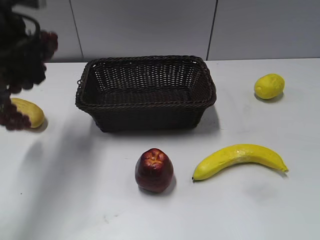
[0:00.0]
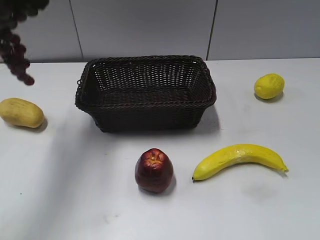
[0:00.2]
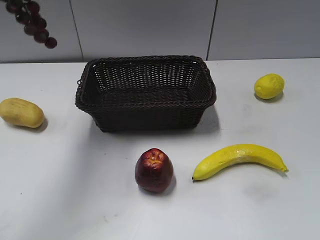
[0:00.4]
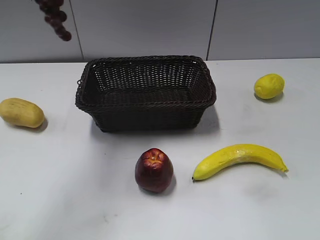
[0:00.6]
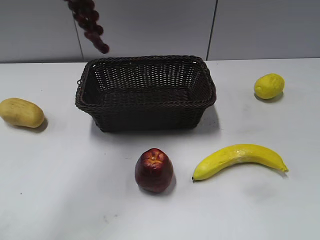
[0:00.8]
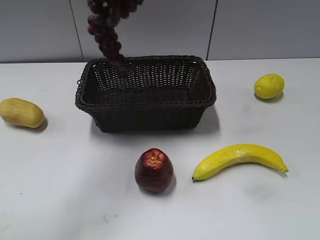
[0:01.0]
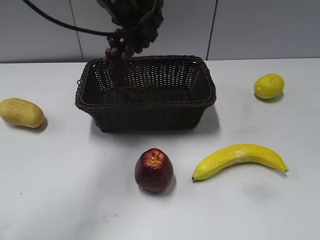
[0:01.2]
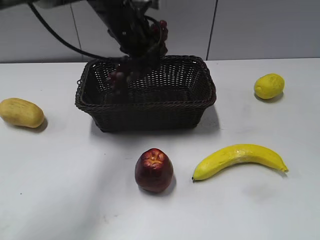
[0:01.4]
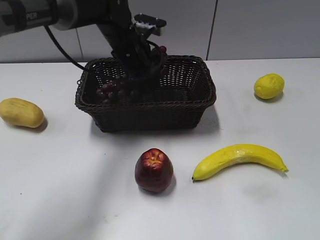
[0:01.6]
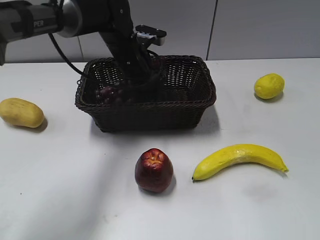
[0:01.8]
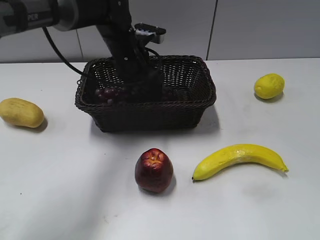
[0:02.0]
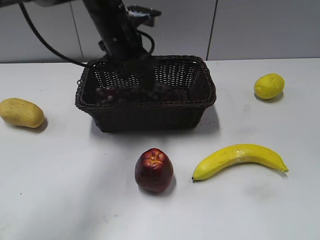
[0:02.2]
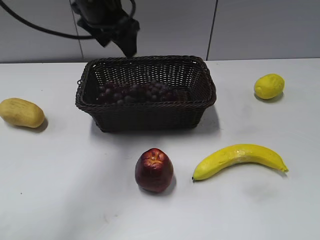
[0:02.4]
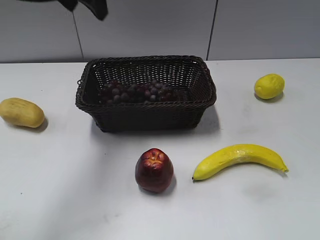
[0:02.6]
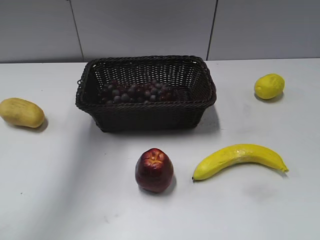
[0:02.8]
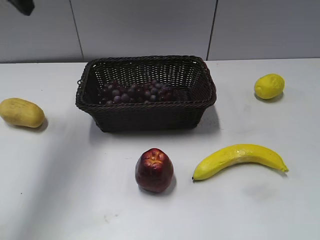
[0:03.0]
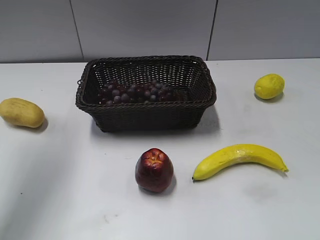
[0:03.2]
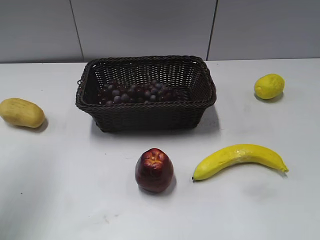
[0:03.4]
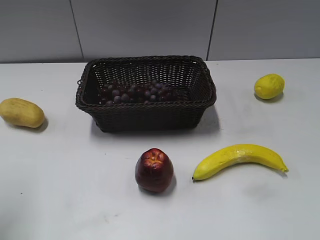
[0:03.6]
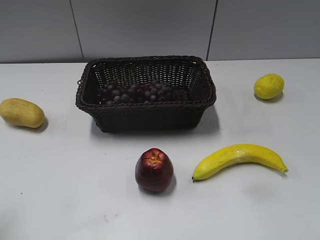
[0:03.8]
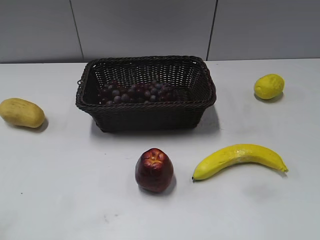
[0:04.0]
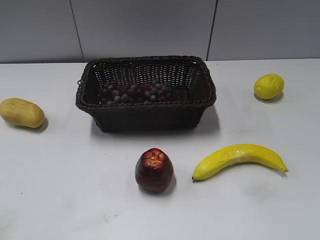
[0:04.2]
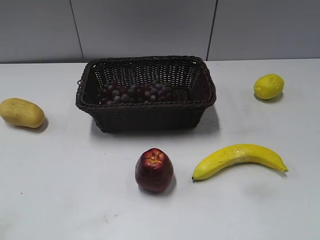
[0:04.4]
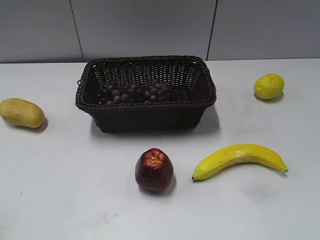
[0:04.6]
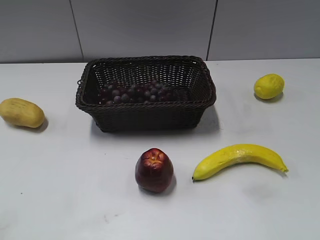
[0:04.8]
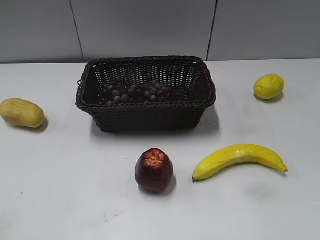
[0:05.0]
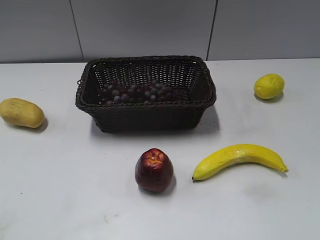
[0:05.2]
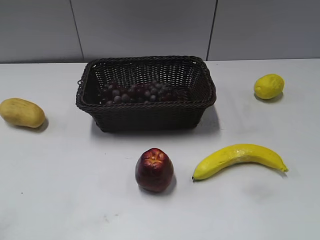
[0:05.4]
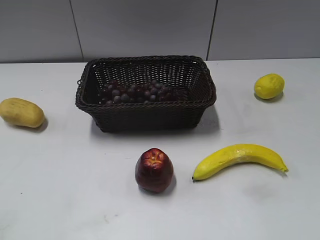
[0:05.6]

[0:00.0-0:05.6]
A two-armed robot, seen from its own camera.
Step, 0:00.0 to 0:02.0: Place the grape in the basket with left gripper.
0:00.0 to 0:01.4: The left gripper is displaced to the right, forward and downward by some 20 cm.
0:01.4 to 0:02.8: The left gripper travels upward and to the left by roughly 20 cm, and opens up.
0:02.8 to 0:04.2: The left gripper heads backward, covering about 35 cm.
